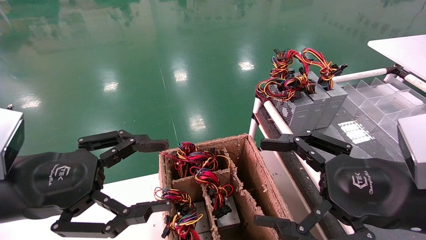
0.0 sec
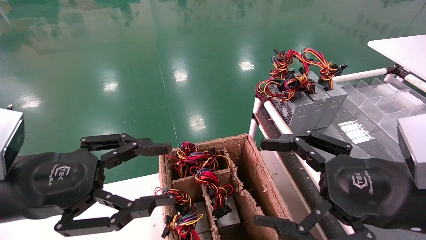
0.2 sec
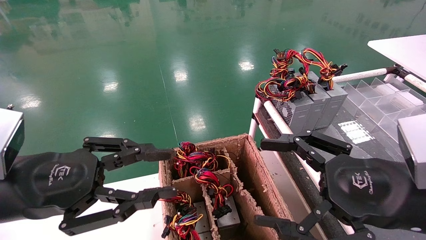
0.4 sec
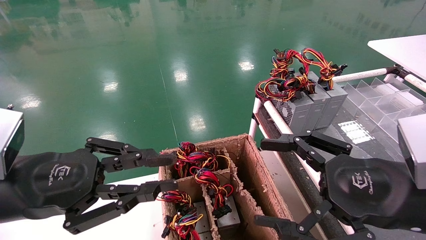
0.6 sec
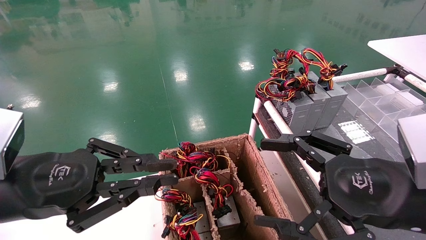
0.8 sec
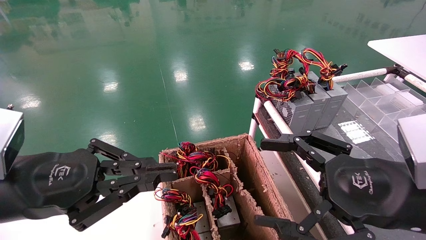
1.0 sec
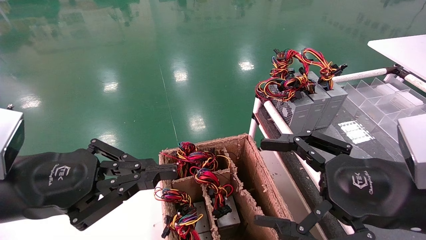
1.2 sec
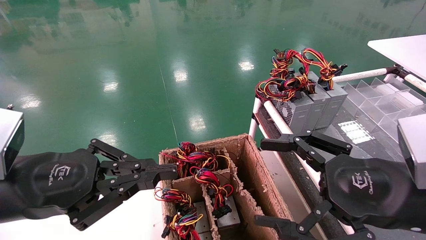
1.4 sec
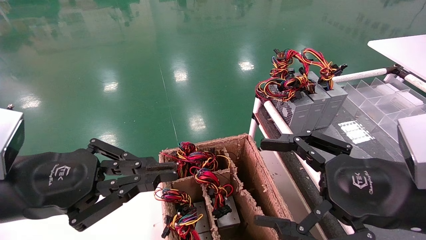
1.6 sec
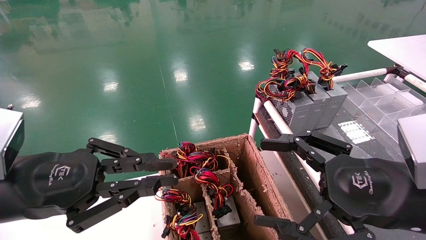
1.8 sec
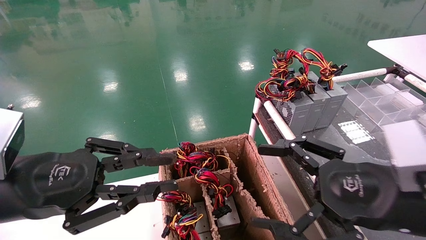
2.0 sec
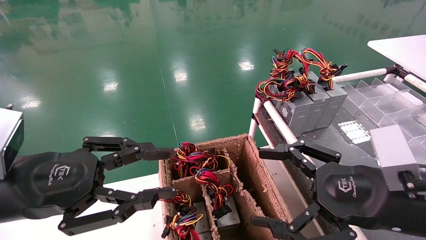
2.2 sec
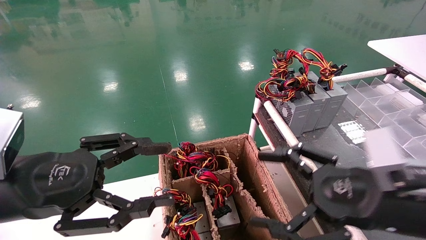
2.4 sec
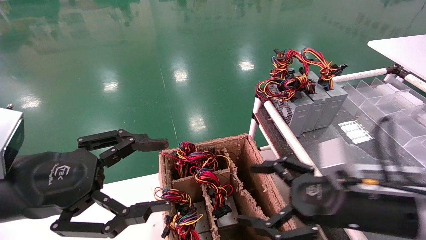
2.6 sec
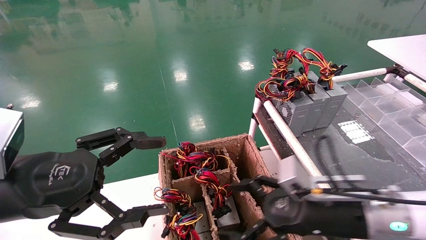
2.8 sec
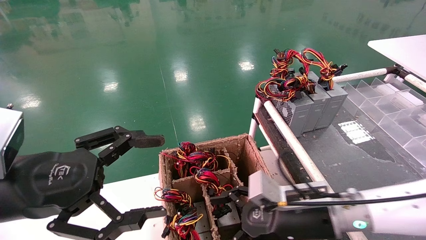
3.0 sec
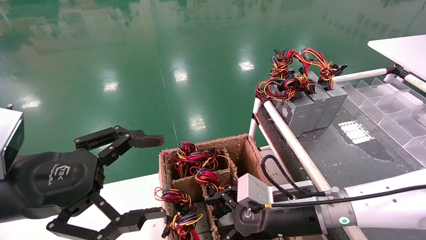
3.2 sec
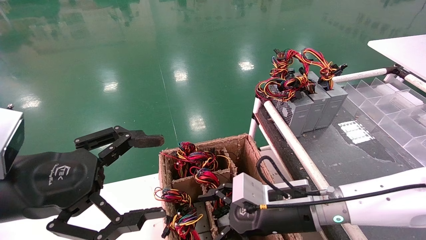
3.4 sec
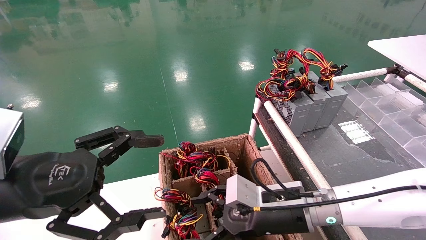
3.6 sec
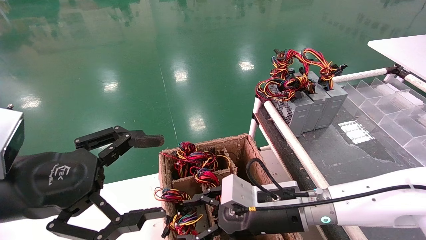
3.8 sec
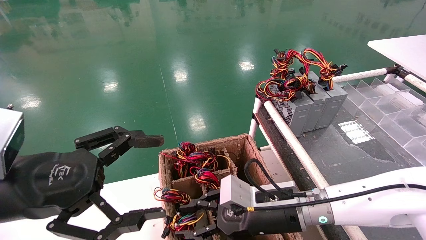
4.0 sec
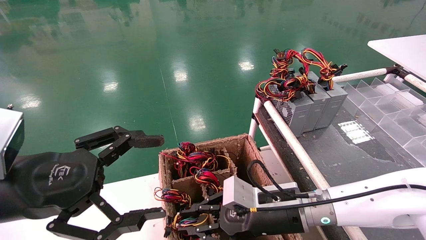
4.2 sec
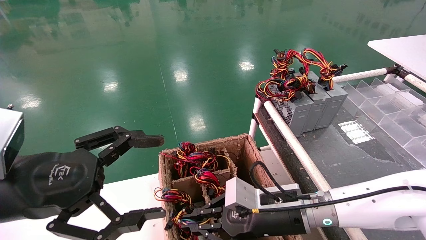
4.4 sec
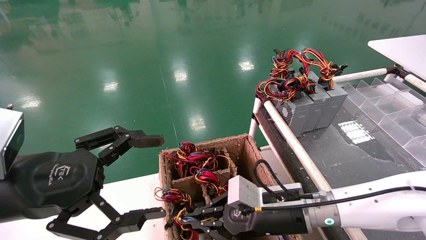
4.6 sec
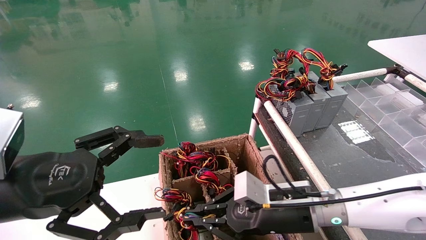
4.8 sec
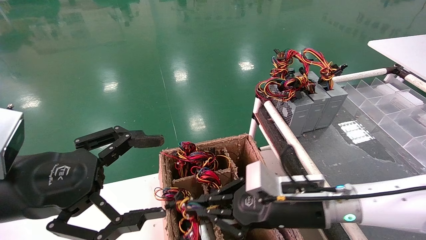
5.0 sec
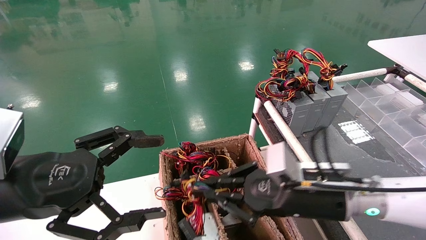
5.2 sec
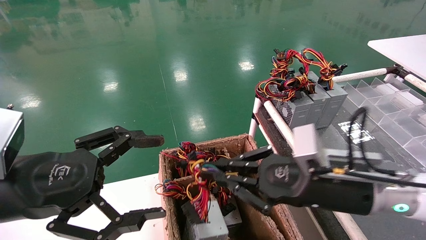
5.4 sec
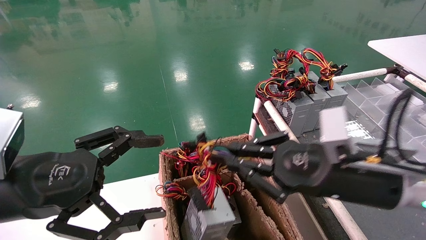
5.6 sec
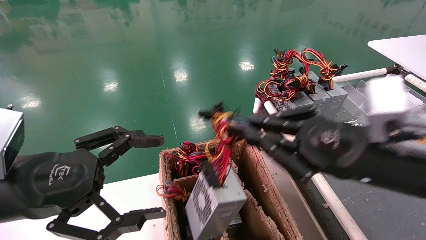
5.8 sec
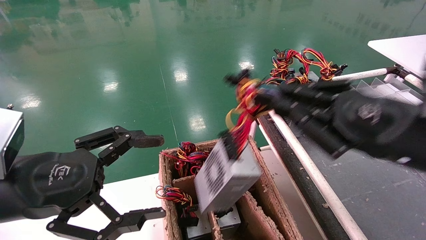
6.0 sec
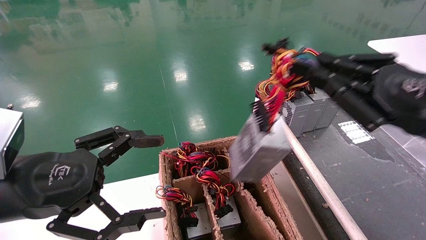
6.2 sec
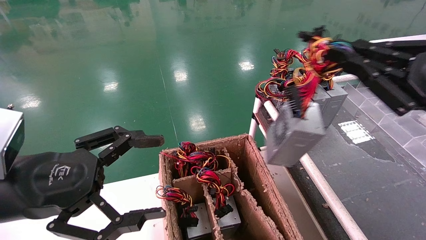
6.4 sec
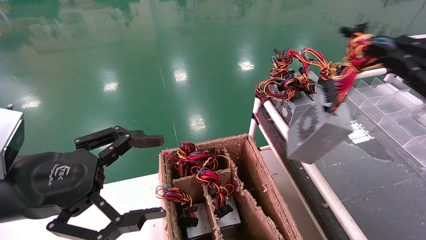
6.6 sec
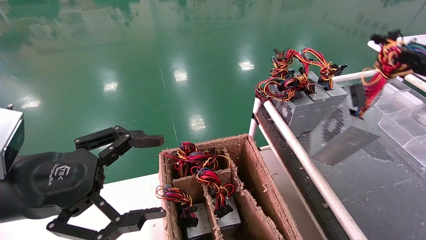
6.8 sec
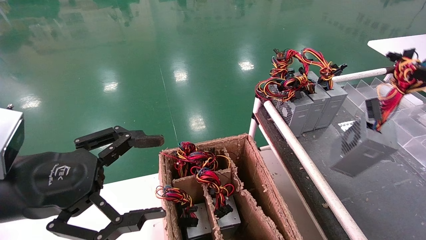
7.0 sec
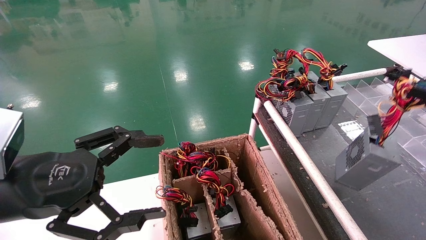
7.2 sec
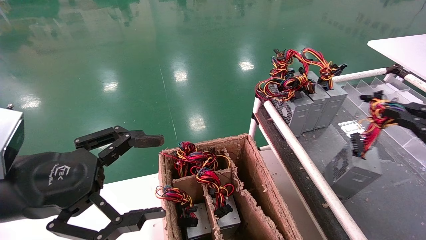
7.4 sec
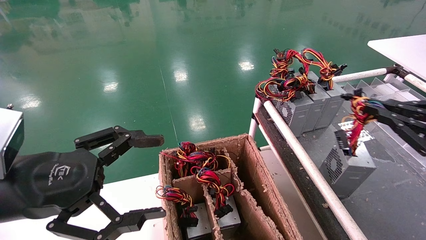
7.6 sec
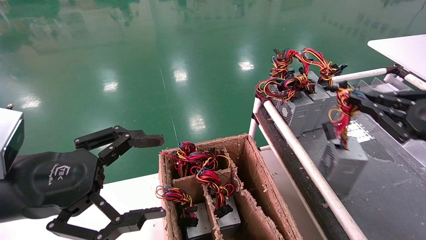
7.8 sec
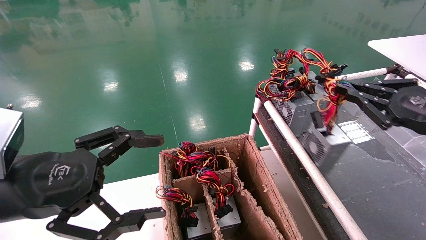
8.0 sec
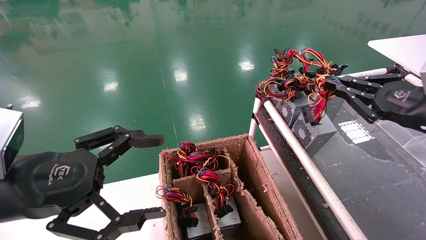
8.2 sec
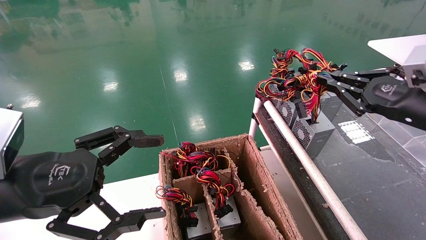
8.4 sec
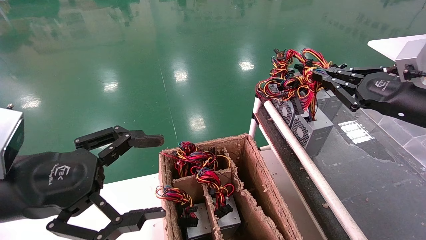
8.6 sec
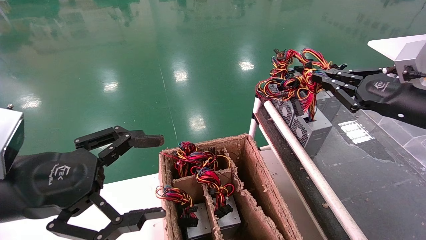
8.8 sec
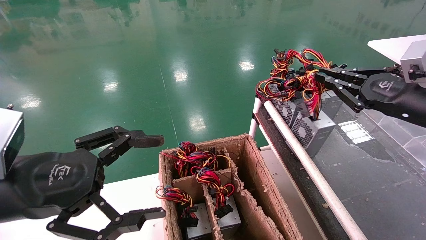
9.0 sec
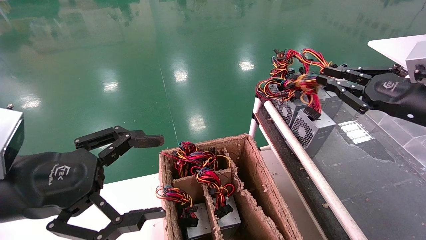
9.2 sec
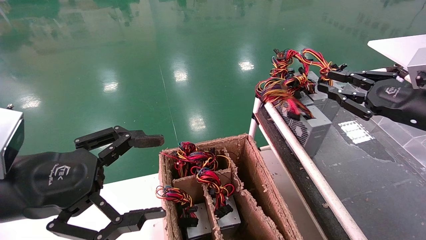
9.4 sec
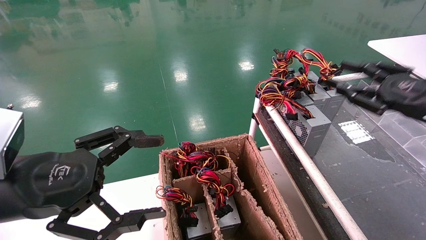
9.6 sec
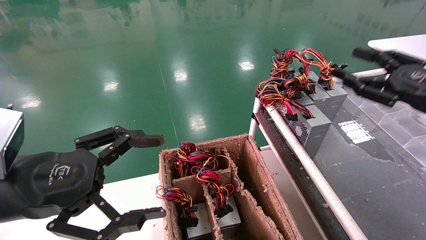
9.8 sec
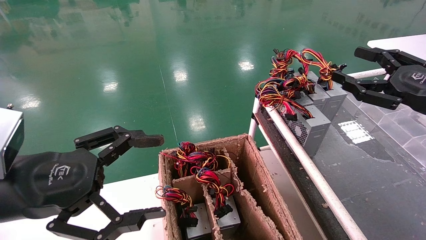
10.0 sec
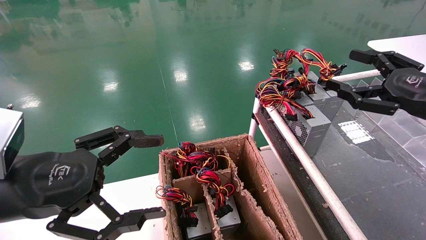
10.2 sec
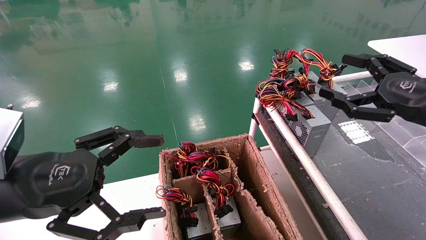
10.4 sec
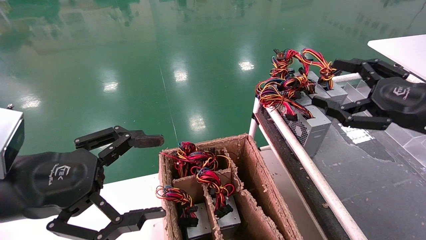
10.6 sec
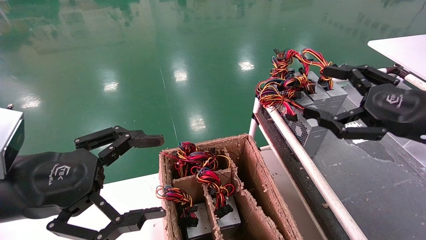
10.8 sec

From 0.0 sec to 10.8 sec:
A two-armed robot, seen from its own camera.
Step, from 1.2 sec to 4.6 sec: Grab and lift the power supply from the large box.
Step, from 4.8 sec to 9.0 sec: Place the power supply on the operating table.
From 0.0 sec to 1.6 sec: The left gripper closes its fingers.
From 1.6 sec to 3.0 sec: The right gripper travels downward, forward and to the left by approximately 15 cm. The left gripper opens its fingers.
From 3.0 sec to 4.6 sec: The right gripper closes its fingers.
From 4.6 sec to 6.2 sec: The right gripper travels upward, to the right and backward by approximately 25 cm.
From 6.2 sec to 7.8 sec: The right gripper is displaced to the right by roughly 10 cm.
From 7.8 sec to 9.2 sec: The right gripper moves forward, about 5 cm.
From 9.2 sec to 10.8 sec: The right gripper shifts about 5 cm backward, and opens.
